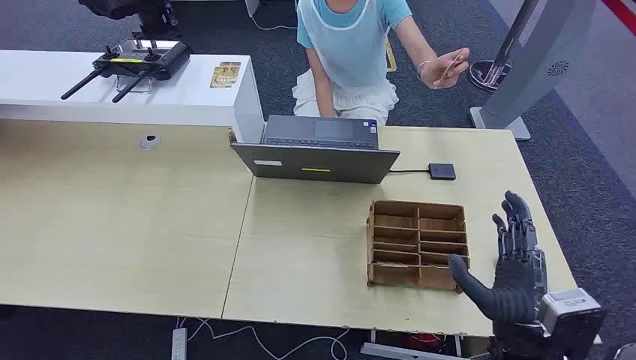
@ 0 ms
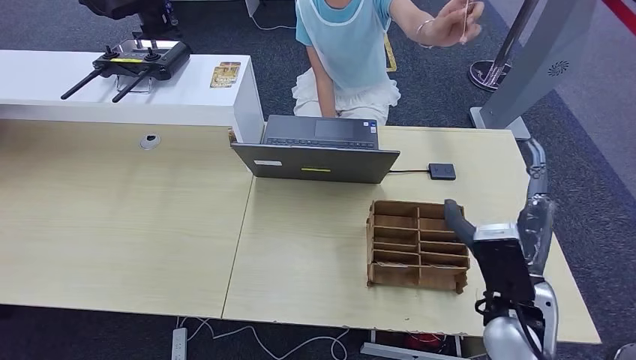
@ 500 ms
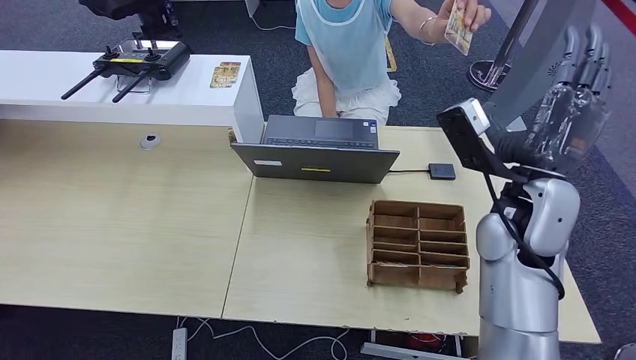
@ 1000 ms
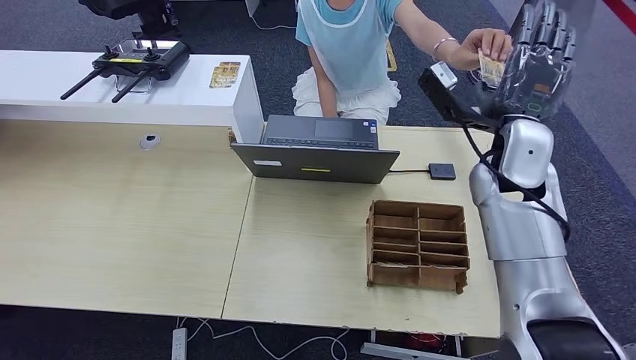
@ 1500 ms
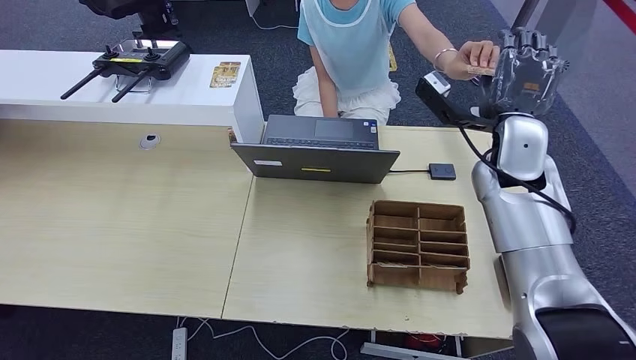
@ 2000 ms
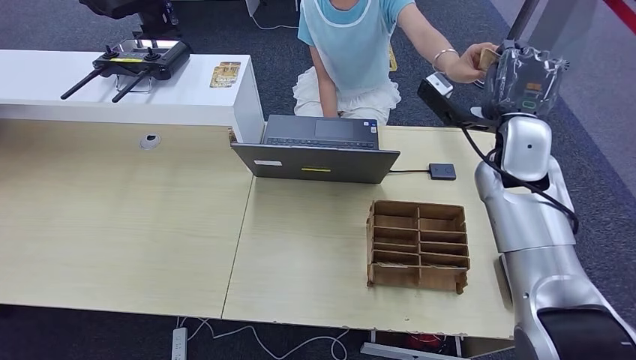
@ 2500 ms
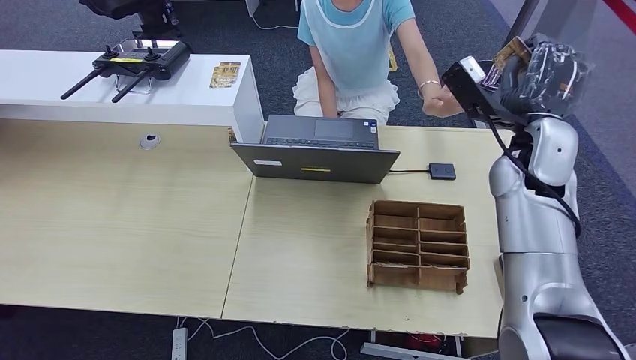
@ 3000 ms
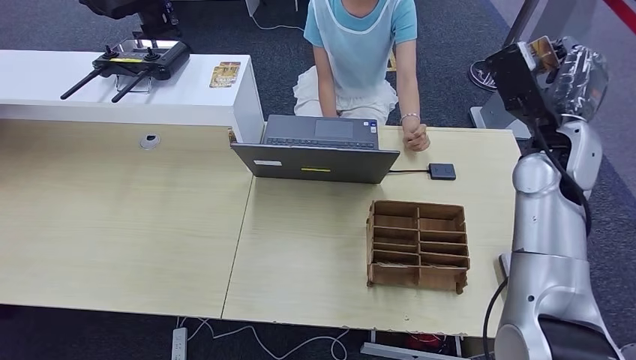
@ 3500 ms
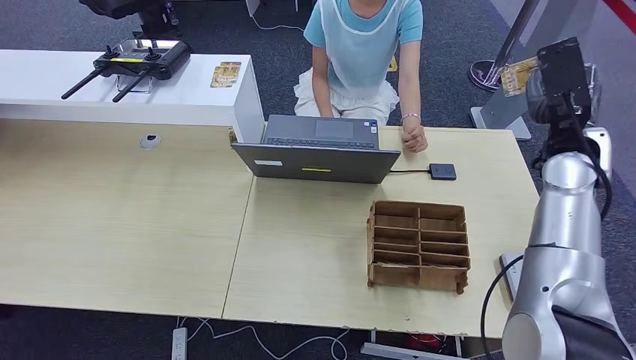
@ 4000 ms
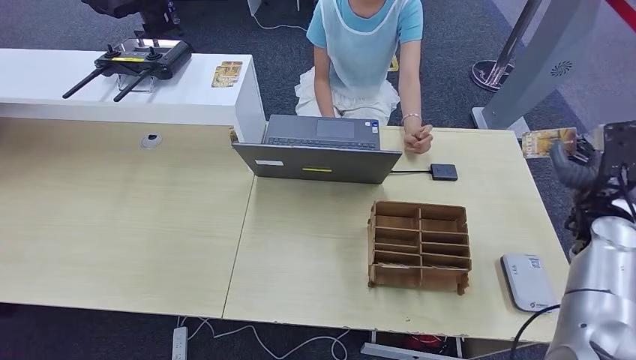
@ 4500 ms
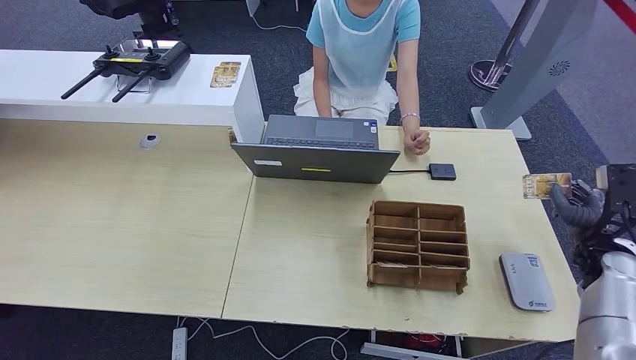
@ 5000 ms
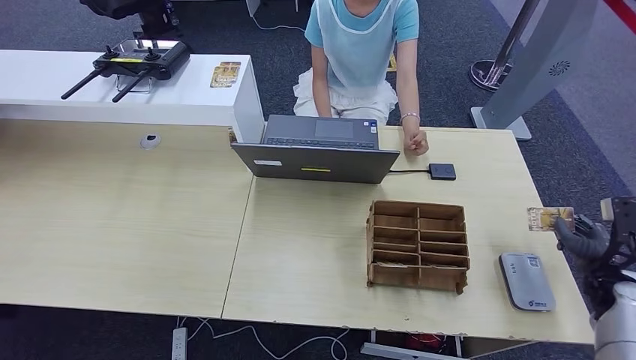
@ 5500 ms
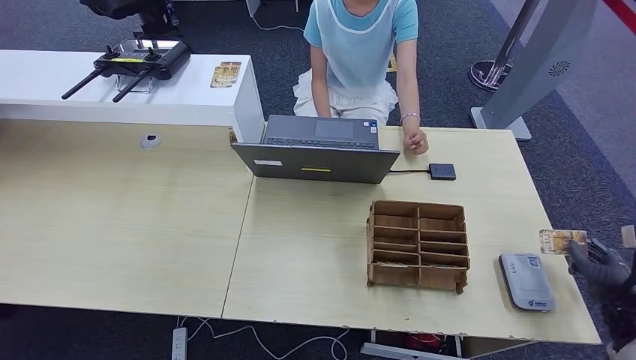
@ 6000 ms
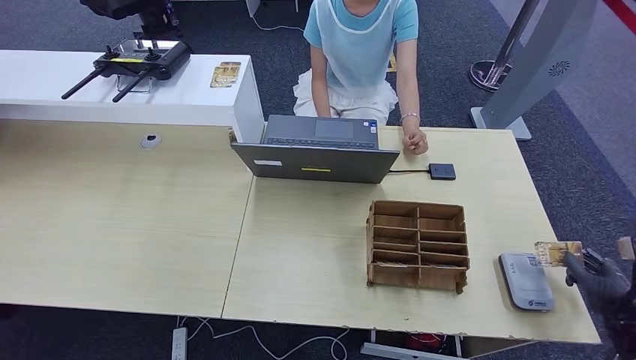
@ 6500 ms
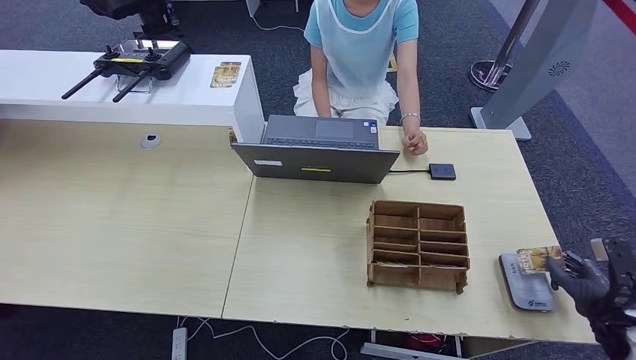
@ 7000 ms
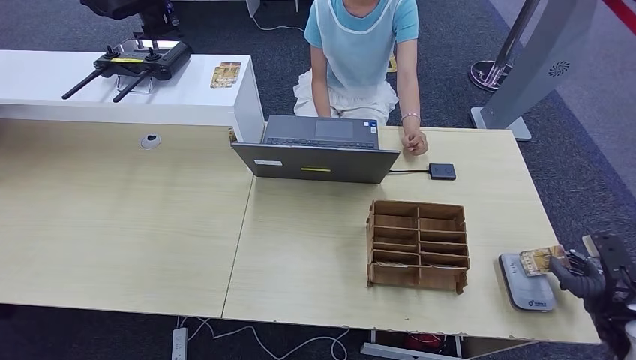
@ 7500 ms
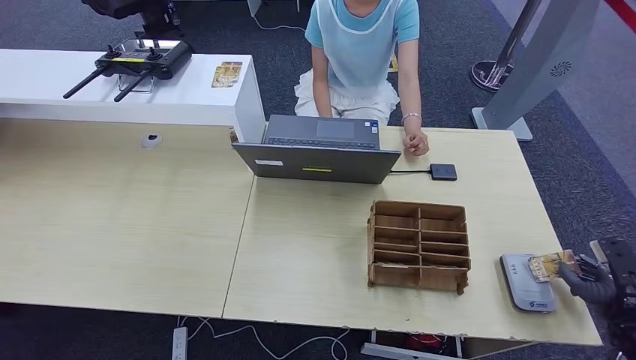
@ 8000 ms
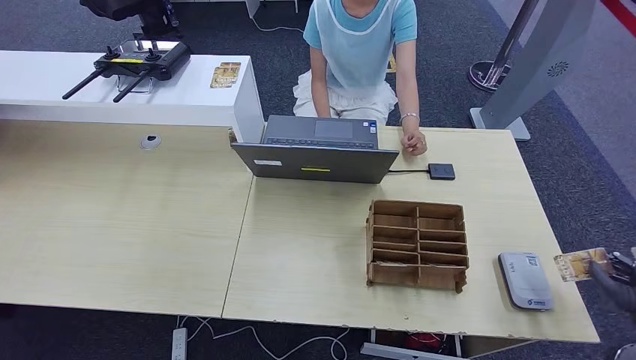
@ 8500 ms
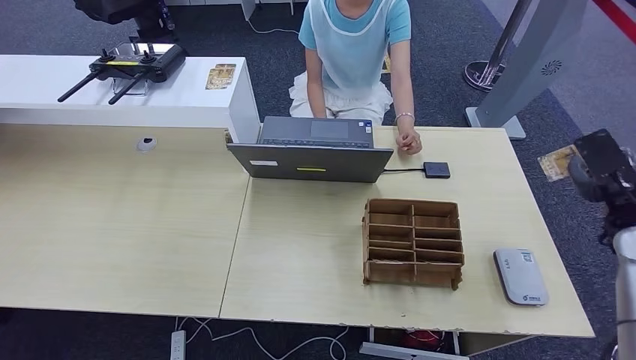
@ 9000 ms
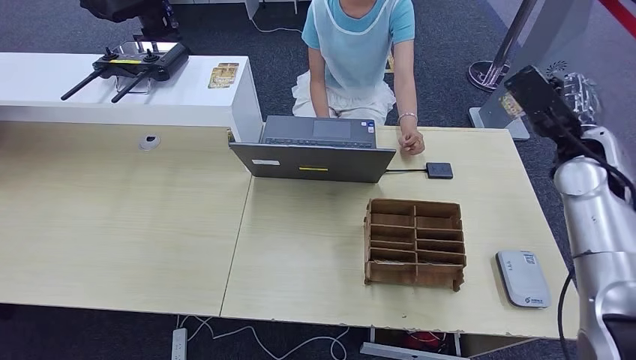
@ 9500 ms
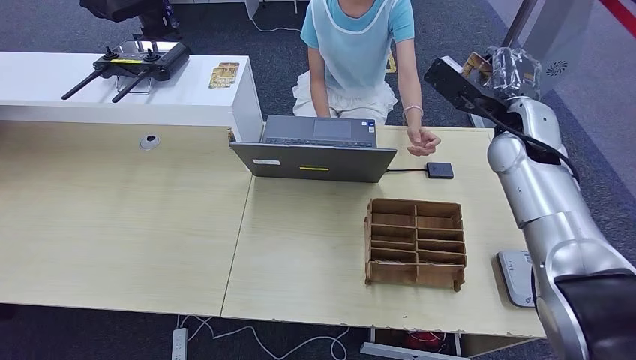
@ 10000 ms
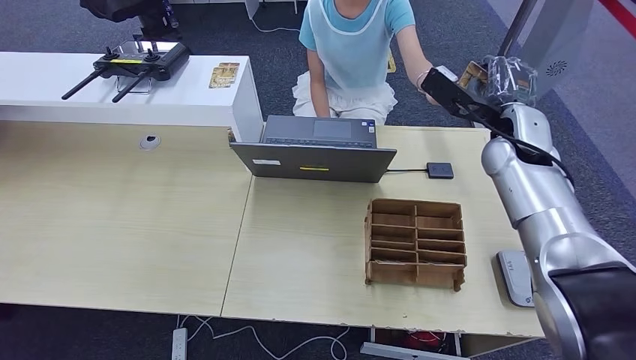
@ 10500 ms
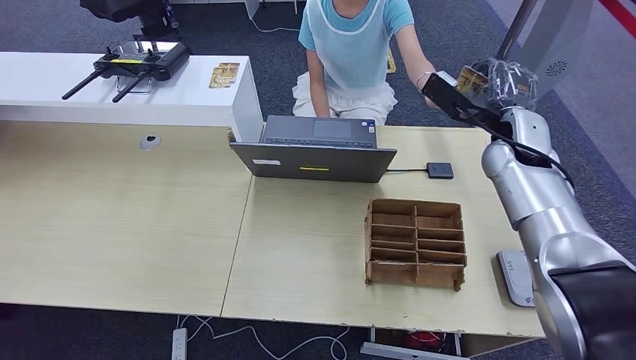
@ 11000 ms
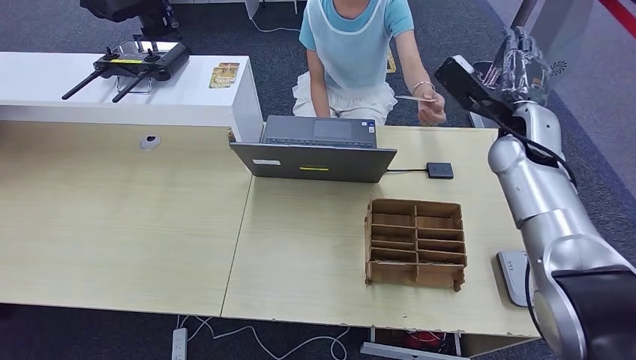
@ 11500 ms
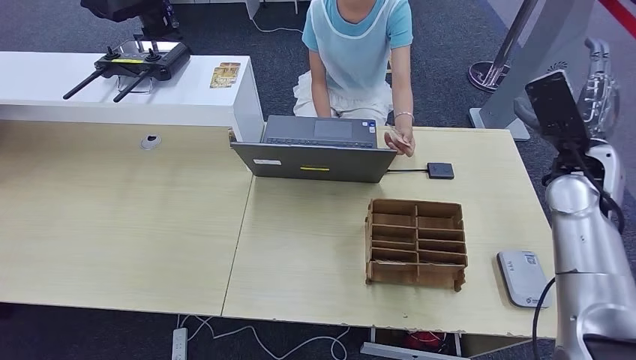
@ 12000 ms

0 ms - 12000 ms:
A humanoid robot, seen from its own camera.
Step, 0 ms - 2500 ms: Take the ID card from the person's hand.
Step, 3000 ms - 6500 ms: Place the ID card on the card reader.
Step, 7000 ms - 11500 ms: Hand the ID card to the person.
2000 ms - 4000 ms: The right hand goes roughly 10 cm to the right.
4000 ms - 6000 ms: The right hand is displaced downward, backward and to the right by roughly 35 cm.
6000 ms - 8000 ms: There are only small adjustments of the hands.
8000 ms - 10000 ms: The right hand moves forward, to the left and upward, about 40 cm.
10000 ms - 12000 ms: The right hand heads to the right and backward, covering roughly 10 cm.

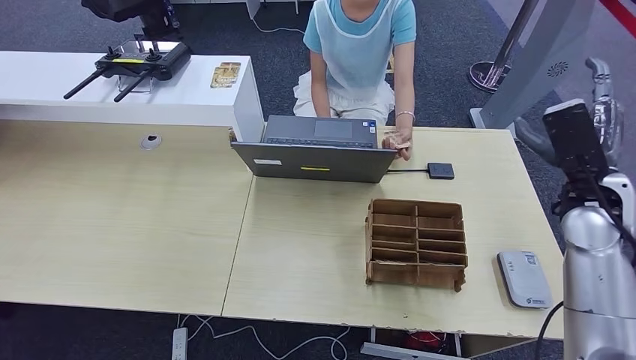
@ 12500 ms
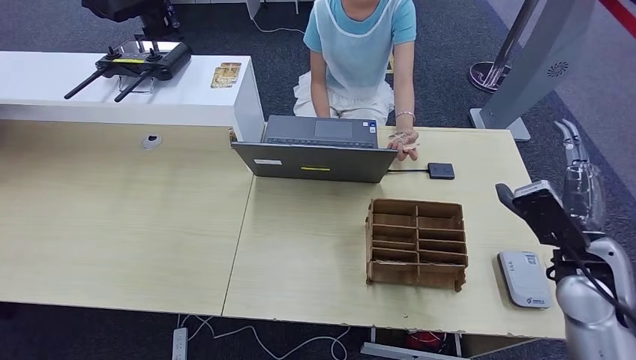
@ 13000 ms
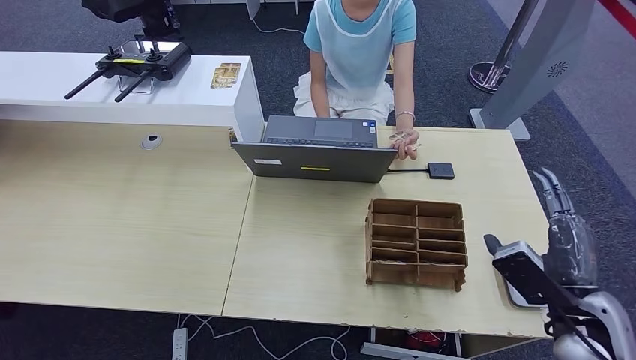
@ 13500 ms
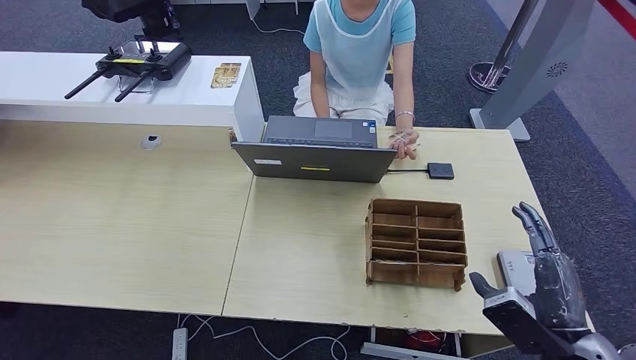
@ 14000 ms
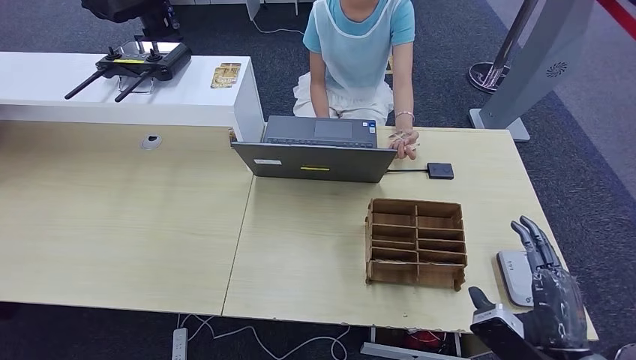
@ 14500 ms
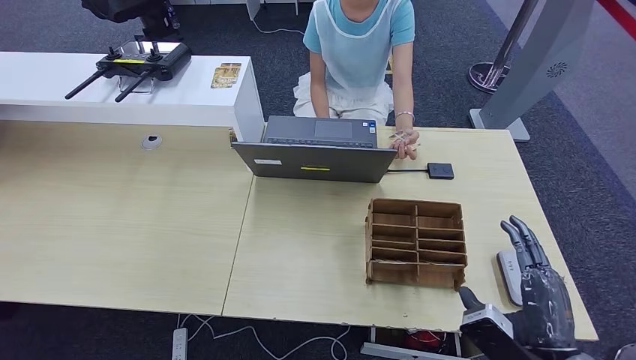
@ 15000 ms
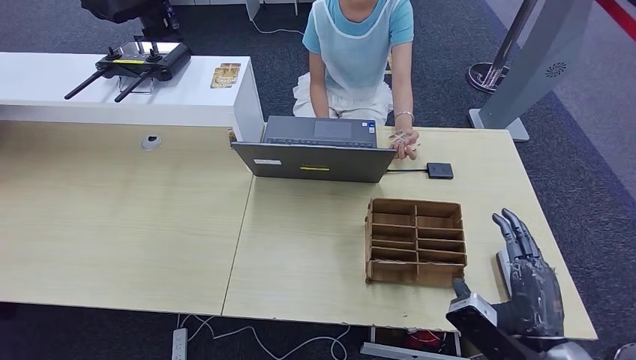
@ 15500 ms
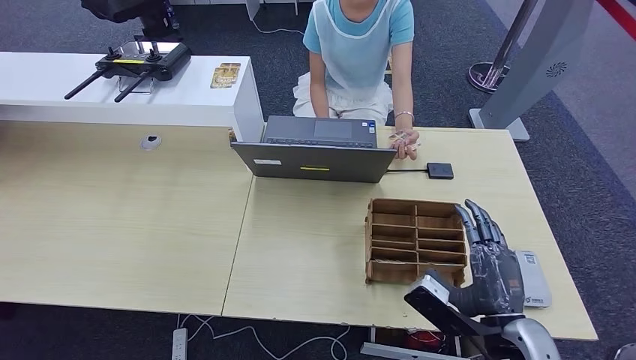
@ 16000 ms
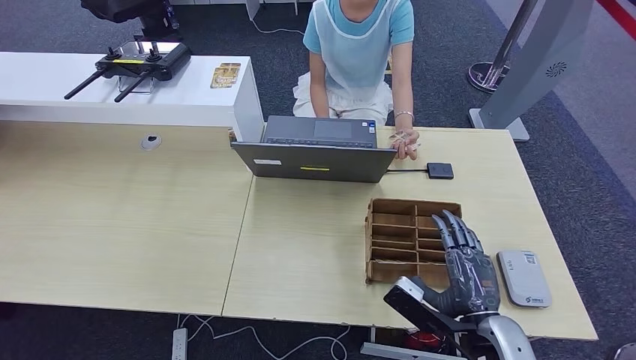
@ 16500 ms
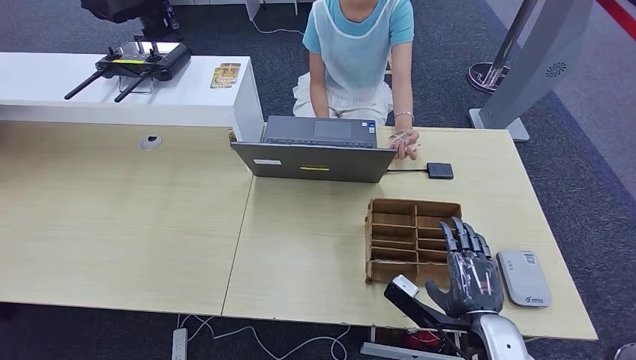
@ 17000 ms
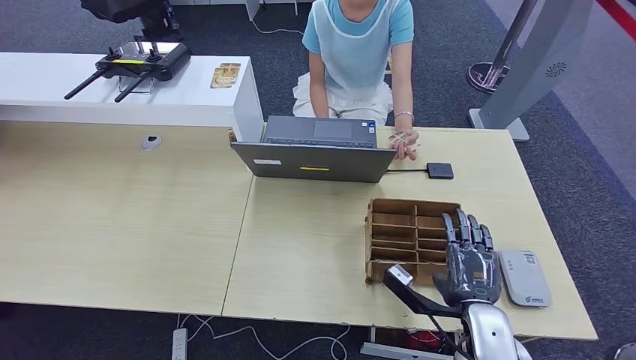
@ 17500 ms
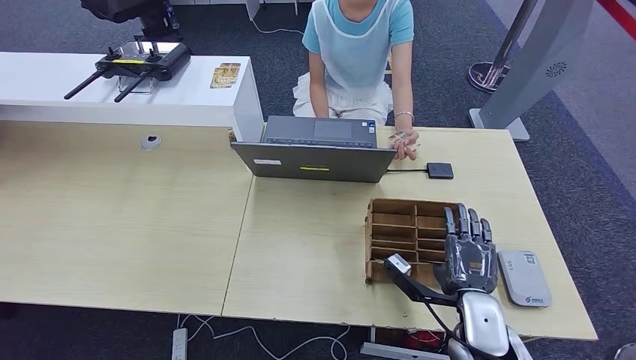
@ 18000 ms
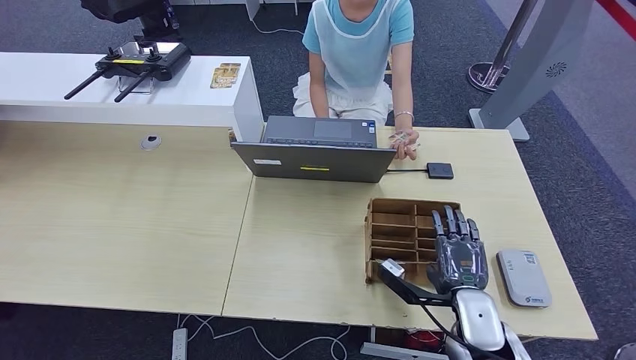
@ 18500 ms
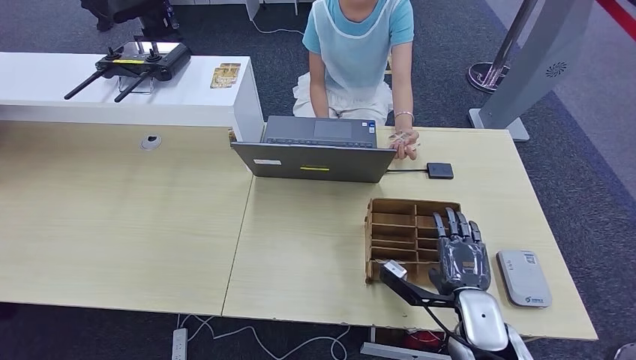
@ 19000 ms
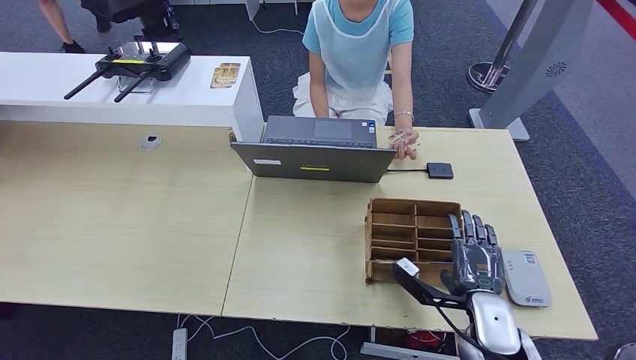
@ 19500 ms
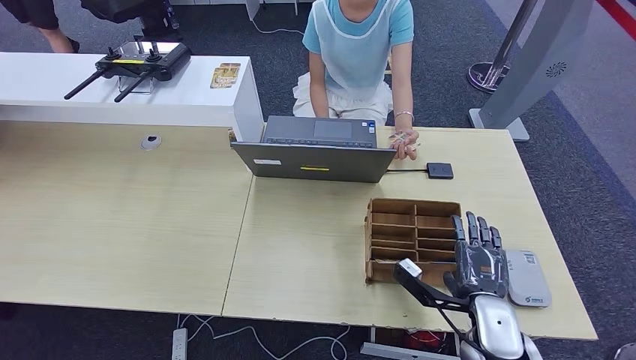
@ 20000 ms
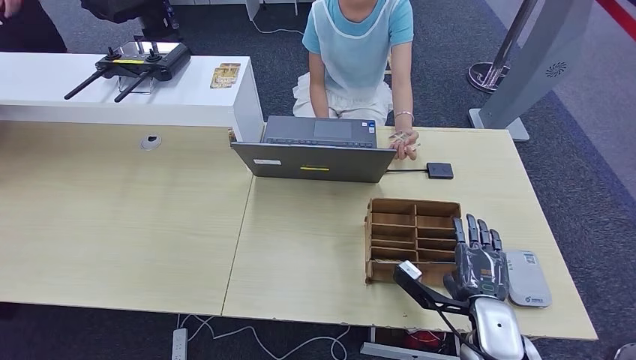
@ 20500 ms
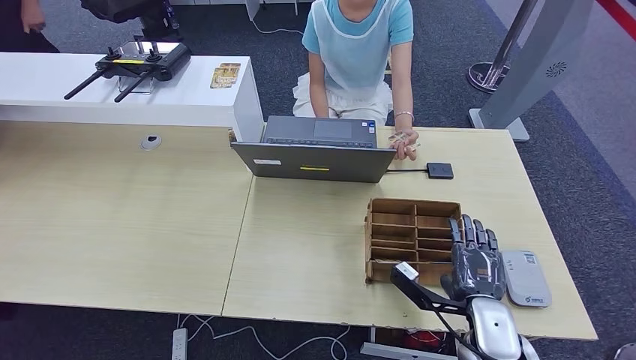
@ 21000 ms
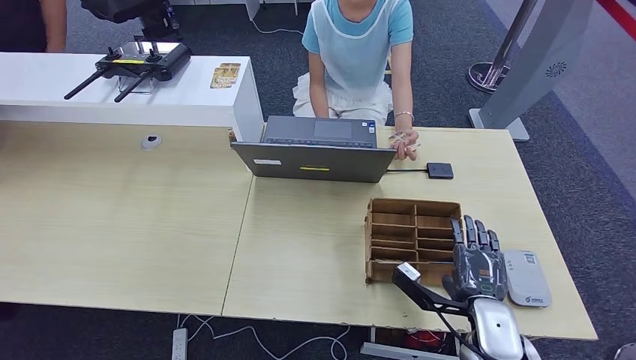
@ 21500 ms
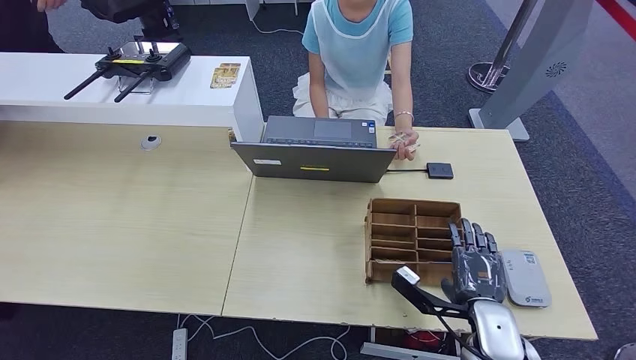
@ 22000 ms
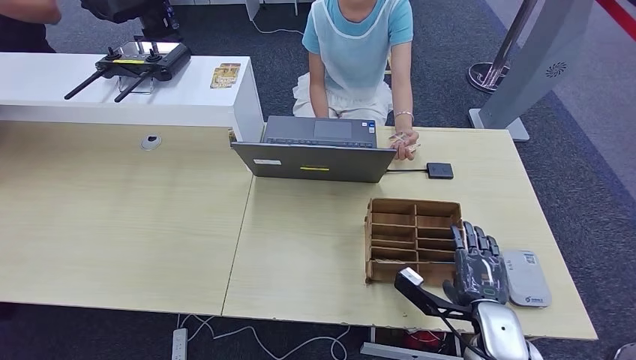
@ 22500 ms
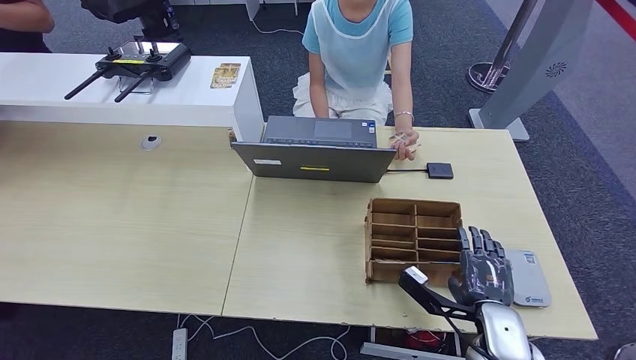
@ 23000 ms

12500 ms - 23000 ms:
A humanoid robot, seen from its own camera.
12500 ms - 14500 ms: The right hand moves backward and downward, roughly 25 cm.
14500 ms - 16500 ms: The right hand heads to the left, covering approximately 5 cm.
16500 ms - 19000 ms: The right hand shifts by approximately 5 cm.
19000 ms - 23000 ms: The hands make only small movements.
